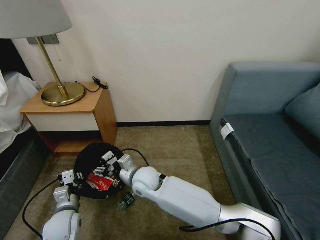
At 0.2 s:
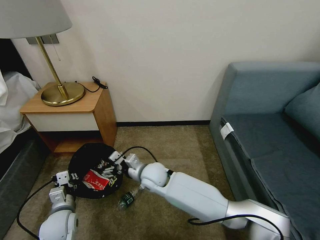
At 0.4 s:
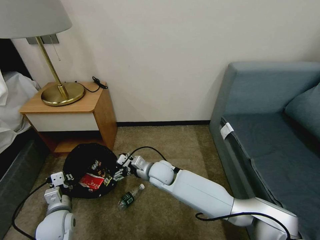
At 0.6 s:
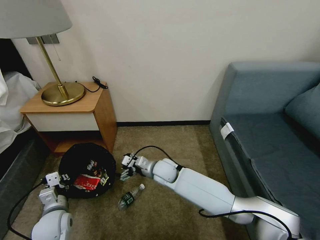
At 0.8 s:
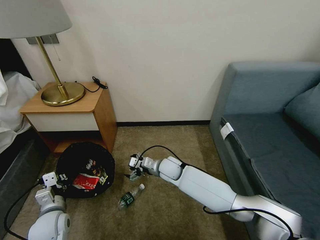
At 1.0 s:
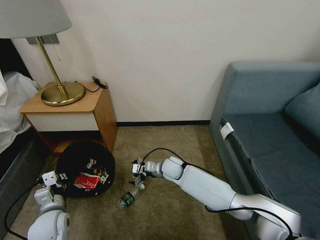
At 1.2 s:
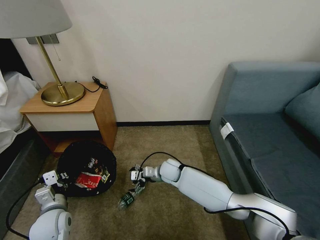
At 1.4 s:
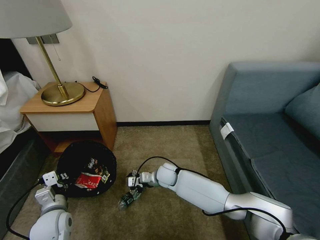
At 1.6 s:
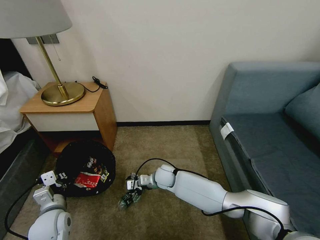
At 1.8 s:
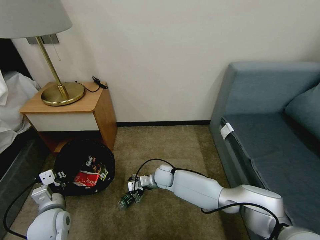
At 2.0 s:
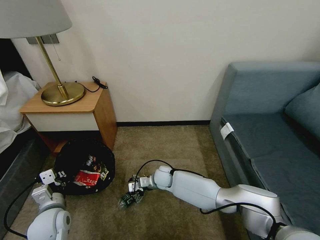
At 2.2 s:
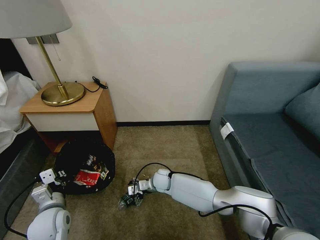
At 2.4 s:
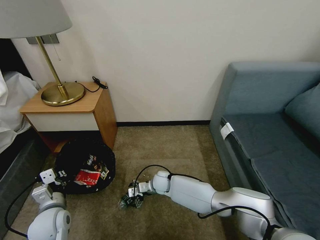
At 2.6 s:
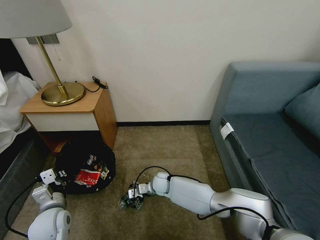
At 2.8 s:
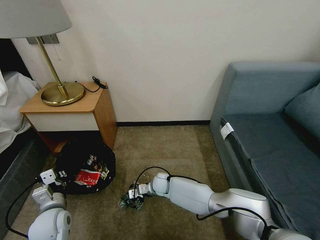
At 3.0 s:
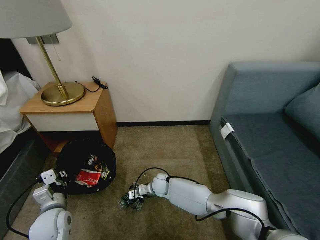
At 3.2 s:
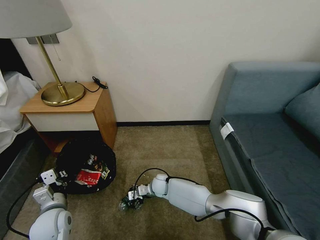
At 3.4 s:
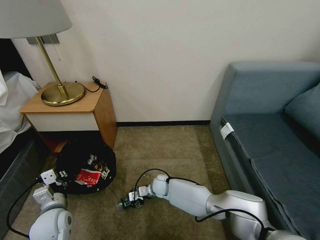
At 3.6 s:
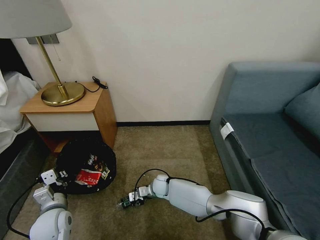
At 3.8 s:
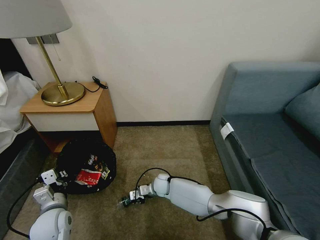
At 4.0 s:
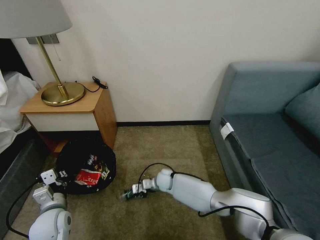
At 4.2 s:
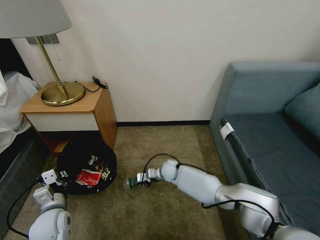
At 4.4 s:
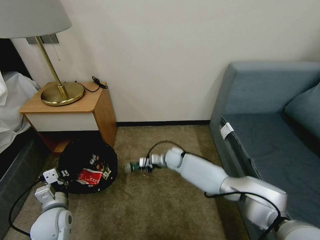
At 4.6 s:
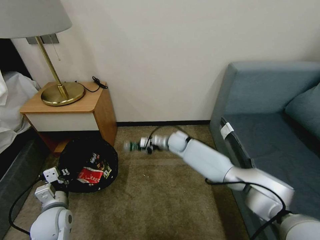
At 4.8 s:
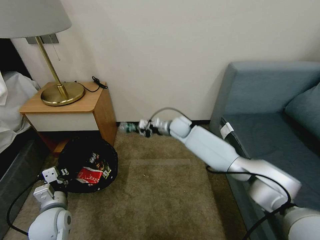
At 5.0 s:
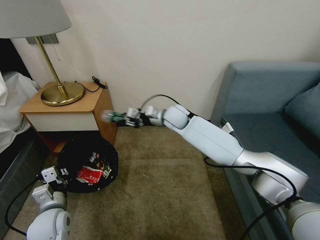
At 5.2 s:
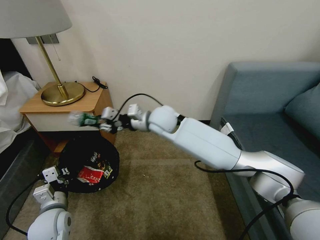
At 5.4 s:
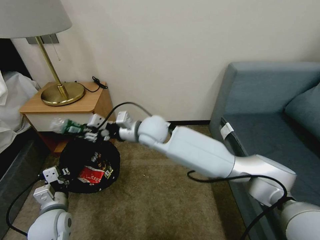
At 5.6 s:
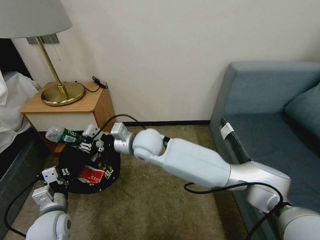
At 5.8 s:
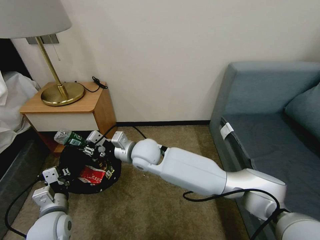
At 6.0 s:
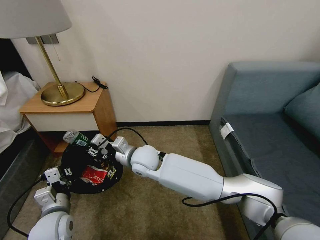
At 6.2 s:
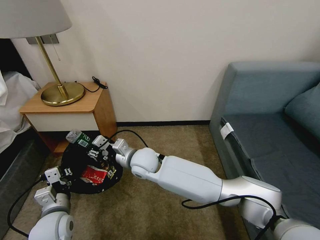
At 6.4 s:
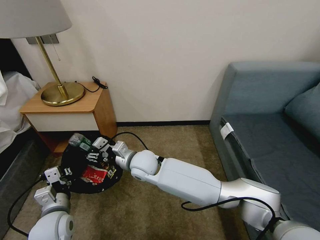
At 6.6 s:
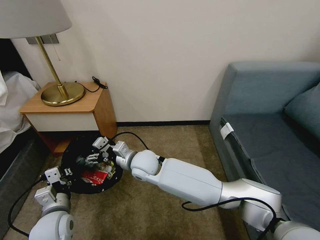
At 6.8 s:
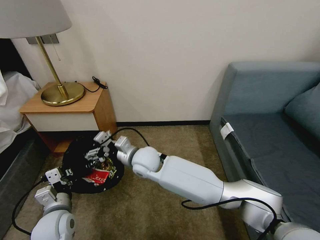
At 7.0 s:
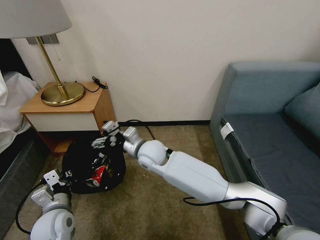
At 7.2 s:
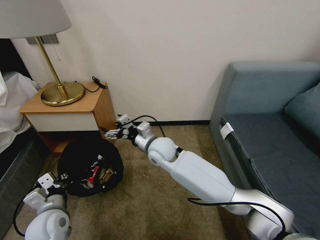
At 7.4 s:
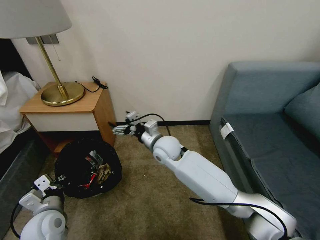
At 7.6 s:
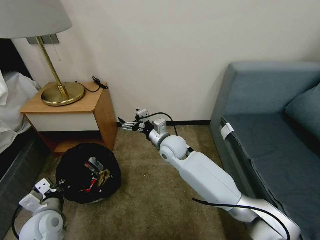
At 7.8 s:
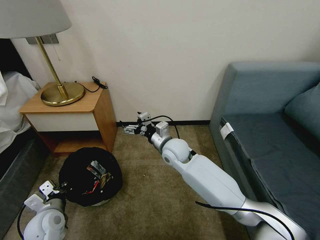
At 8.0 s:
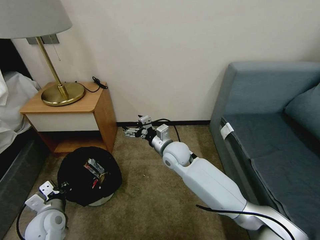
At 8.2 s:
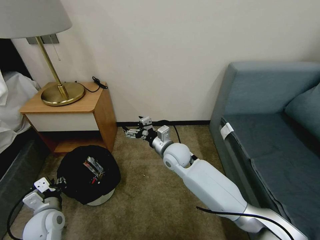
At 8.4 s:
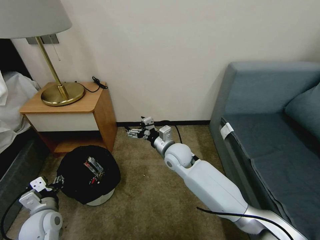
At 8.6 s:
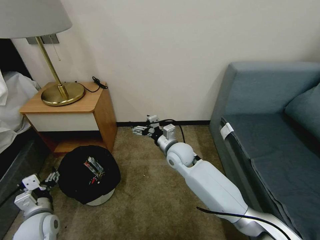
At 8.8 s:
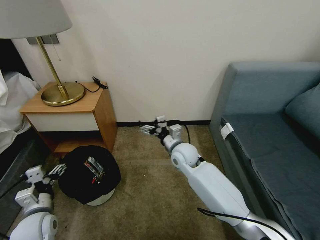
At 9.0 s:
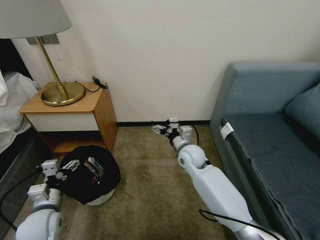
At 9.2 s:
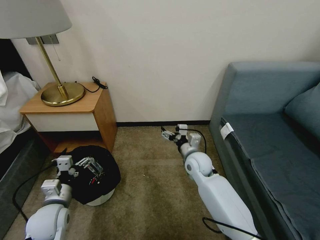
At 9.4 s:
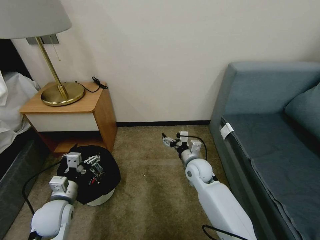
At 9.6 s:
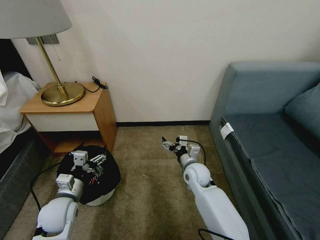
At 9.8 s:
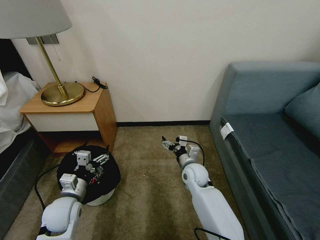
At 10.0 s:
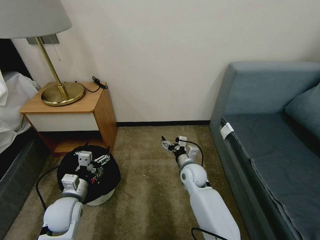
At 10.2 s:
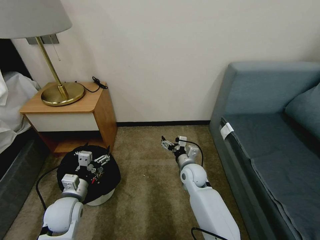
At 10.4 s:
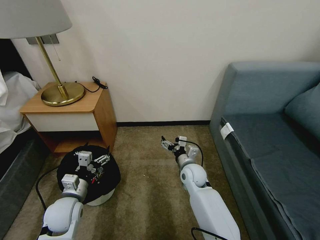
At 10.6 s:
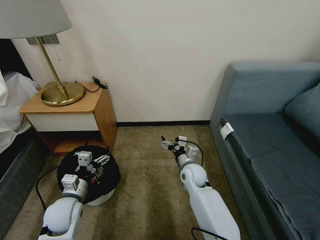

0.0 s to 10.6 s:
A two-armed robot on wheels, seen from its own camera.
Task of the whole recording: Pick up the trash bin, then pick up the garbage on the floor and place it into the trash bin.
0.0 to 1.6 s: The right gripper travels downward, to the right and forward by some 15 cm.
1.6 to 3.0 s: The right gripper goes roughly 5 cm downward.
3.0 to 4.6 s: The right gripper is displaced upward, forward and to the right by some 20 cm, and closes its fingers.
4.6 to 6.0 s: The right gripper travels backward, to the left and upward by approximately 25 cm.
6.0 to 7.6 s: The right gripper goes about 10 cm to the right and forward, and opens its fingers.
7.6 to 9.0 s: The right gripper is displaced to the right by about 5 cm. The left gripper opens up.
9.0 to 10.6 s: The left gripper moves some 5 cm. Meanwhile the right gripper shifts approximately 5 cm downward.
